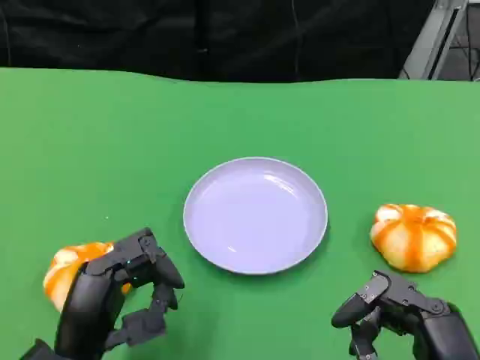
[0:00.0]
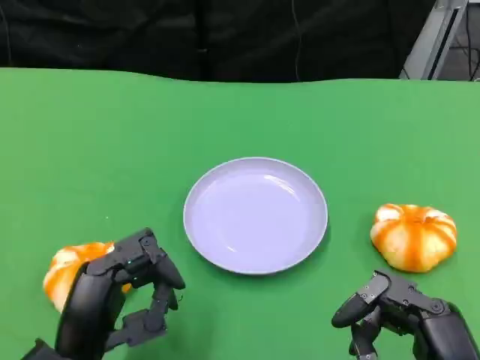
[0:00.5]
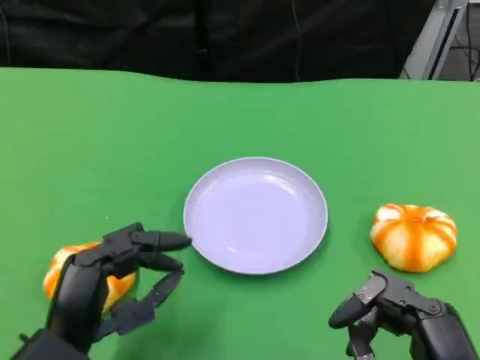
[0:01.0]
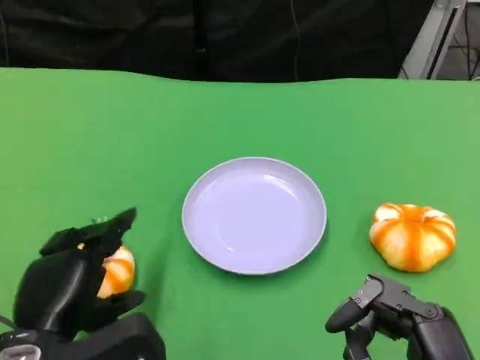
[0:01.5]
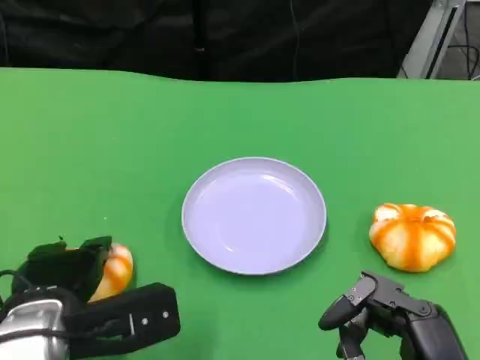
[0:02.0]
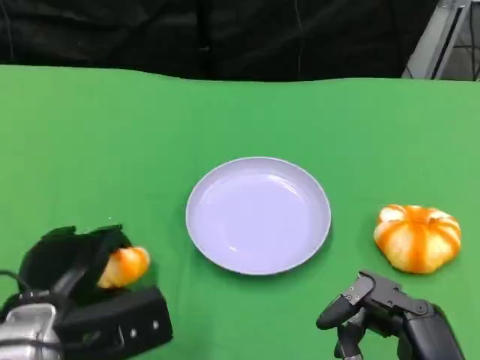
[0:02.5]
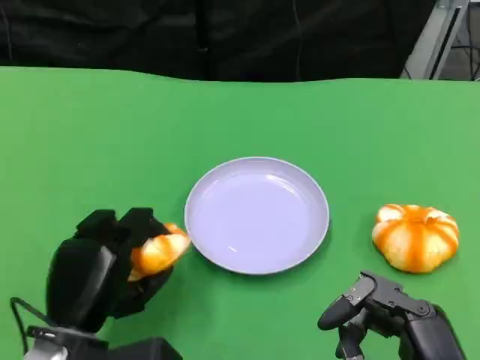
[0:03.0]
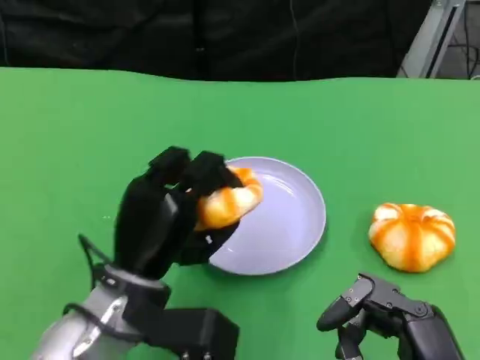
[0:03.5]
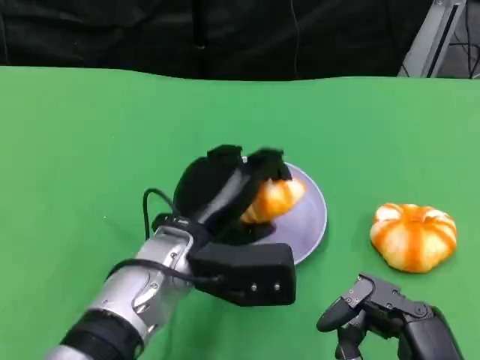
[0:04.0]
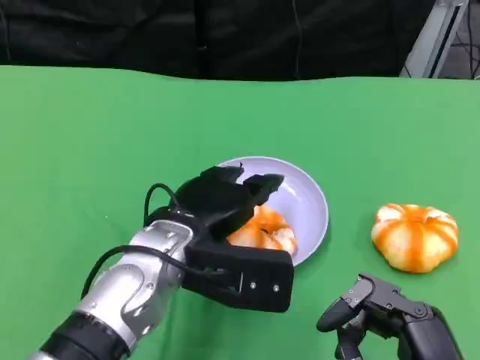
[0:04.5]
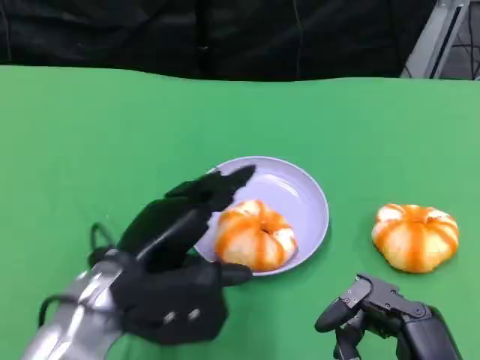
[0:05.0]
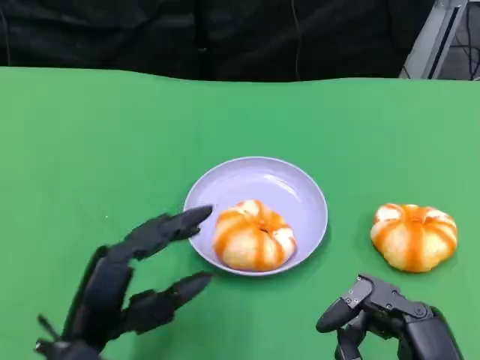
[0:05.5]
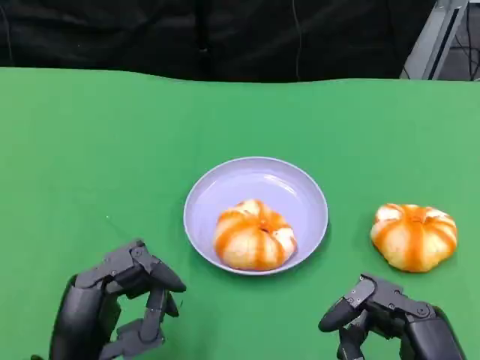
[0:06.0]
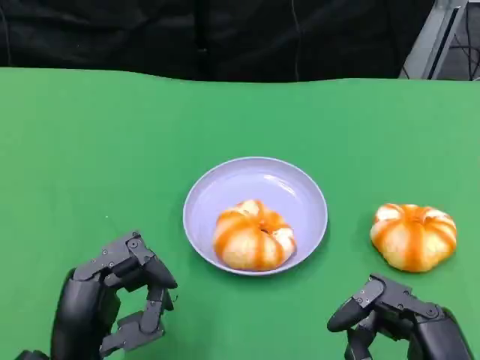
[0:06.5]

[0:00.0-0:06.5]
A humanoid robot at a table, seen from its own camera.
Task of the whole recording: Grasp the bread from the table and place it into the plate.
0:00.0 to 0:02.0: The left hand is displaced forward by roughly 5 cm.
0:02.0 to 0:04.5: The left hand goes approximately 10 cm to the right and forward.
0:04.5 to 0:06.5: The left hand is displaced backward, to the left and downward by about 15 cm.

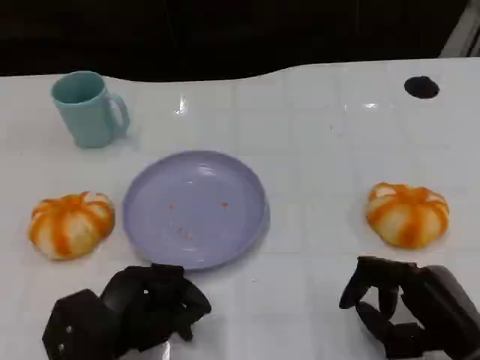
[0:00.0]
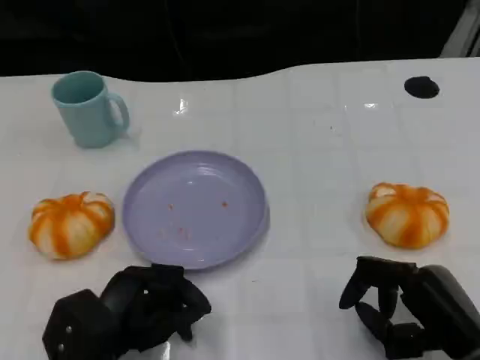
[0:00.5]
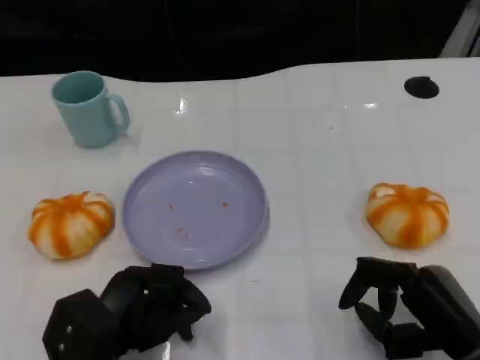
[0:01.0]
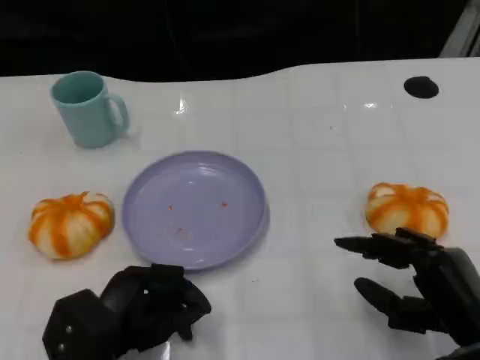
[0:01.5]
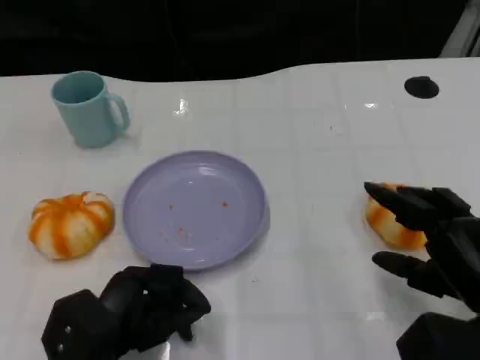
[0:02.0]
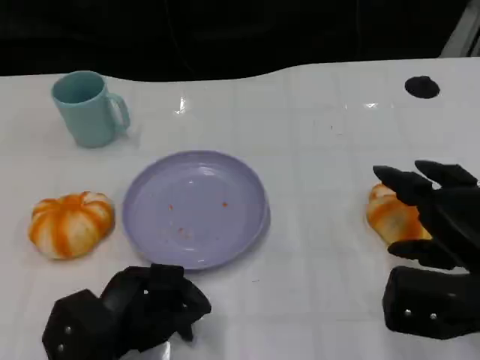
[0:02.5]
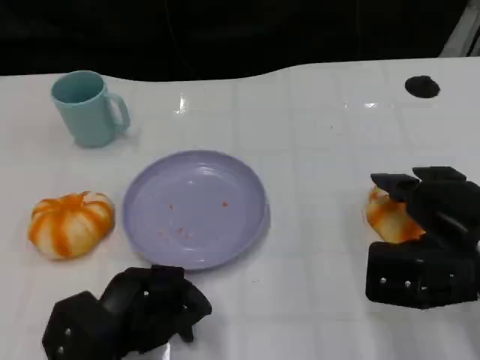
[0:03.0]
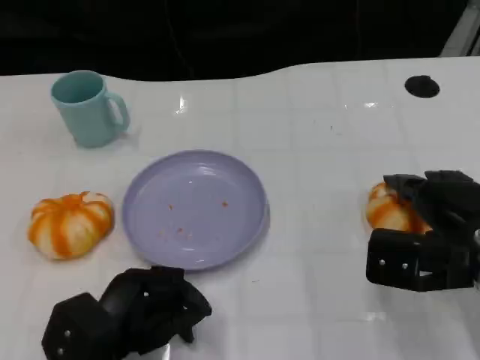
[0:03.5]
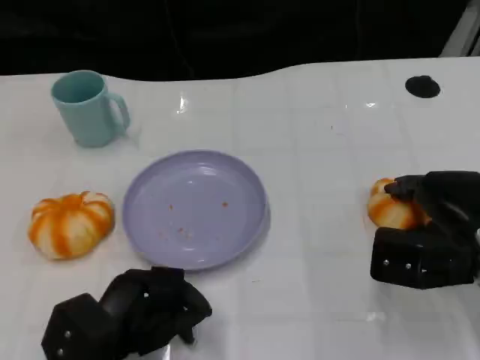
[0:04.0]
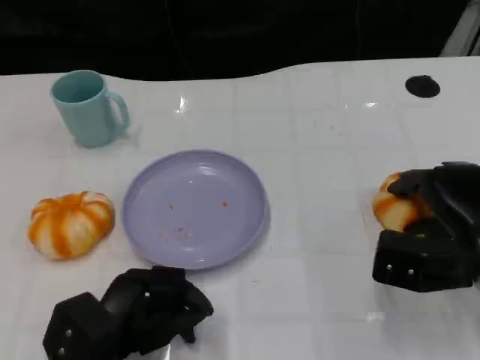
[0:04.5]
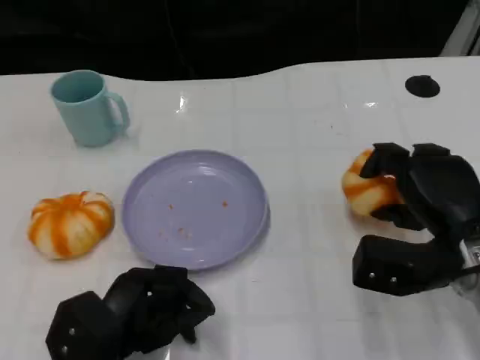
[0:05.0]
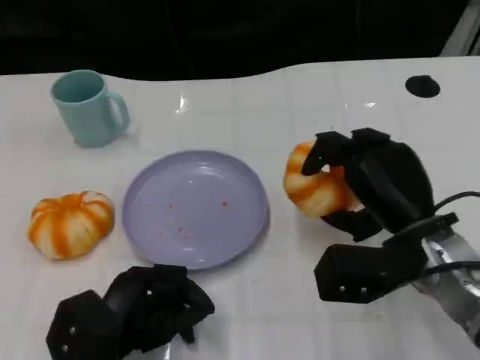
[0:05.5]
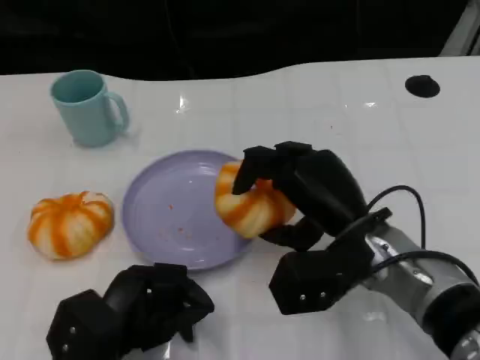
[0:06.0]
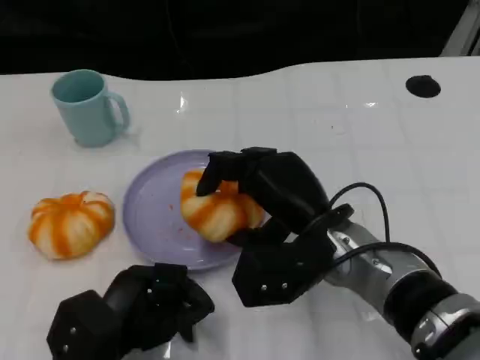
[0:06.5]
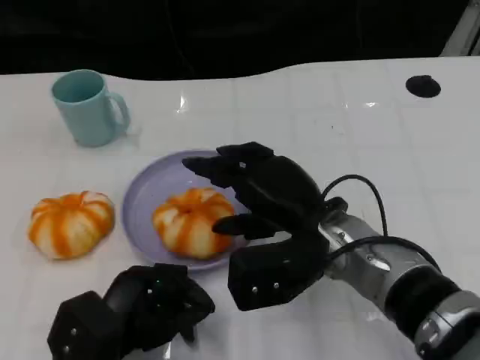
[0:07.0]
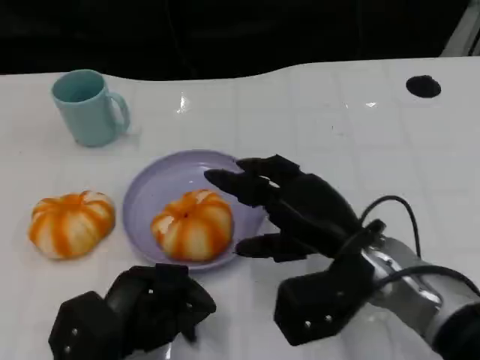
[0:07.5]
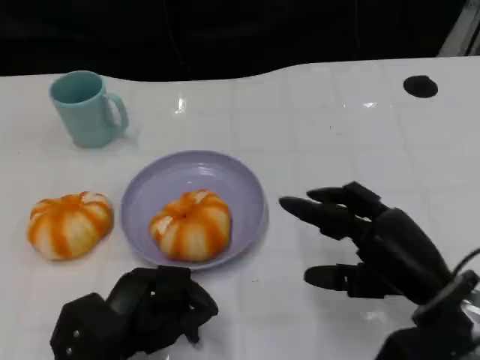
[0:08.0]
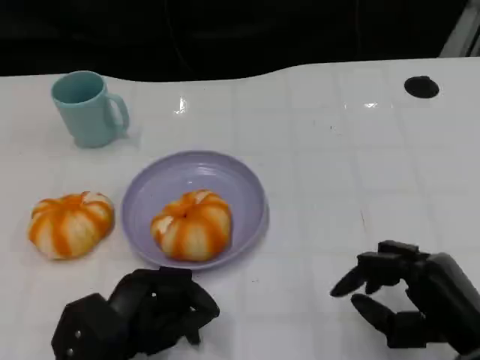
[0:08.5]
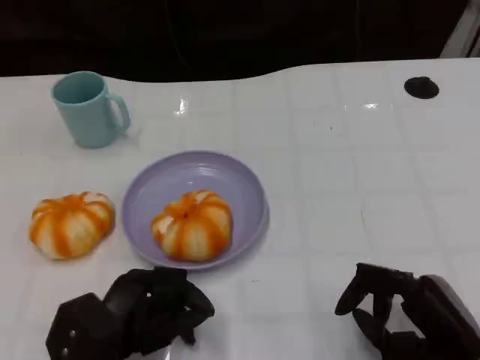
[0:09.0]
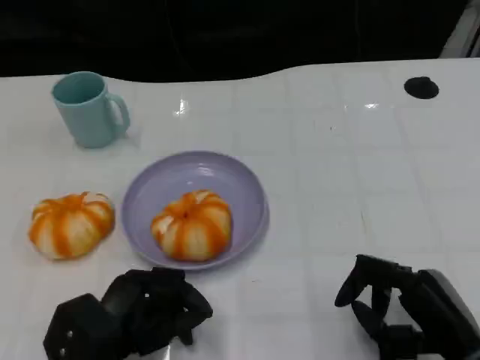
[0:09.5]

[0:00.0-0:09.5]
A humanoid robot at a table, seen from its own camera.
Task of the whole recording: Grasp the bread from the table and place it into the plate.
0:00.0 to 0:02.0: The right hand changes place by roughly 5 cm.
0:02.0 to 0:04.0: The right hand shifts approximately 10 cm forward.
0:04.0 to 0:05.5: The right hand heads to the left, covering roughly 5 cm.
0:07.5 to 0:09.5: The right hand moves to the right, backward and downward, approximately 15 cm.

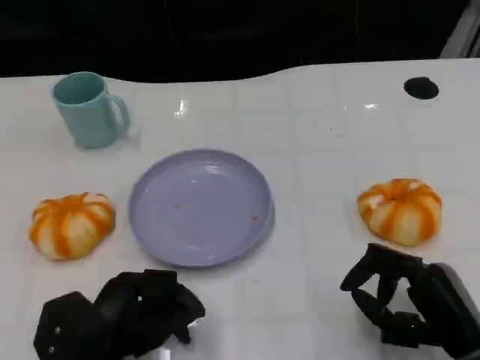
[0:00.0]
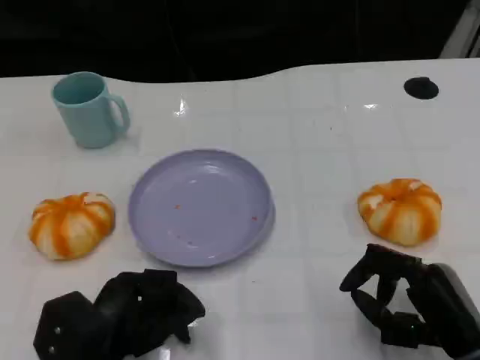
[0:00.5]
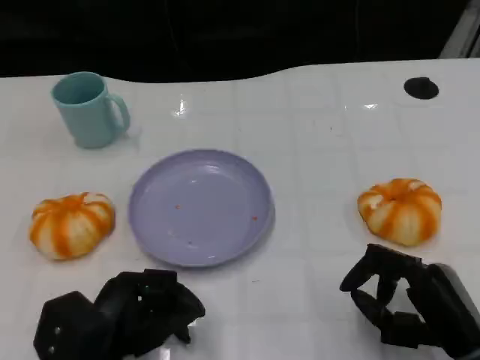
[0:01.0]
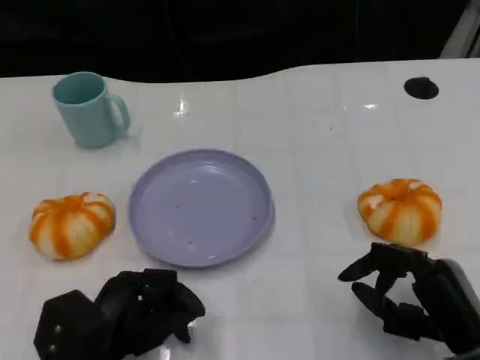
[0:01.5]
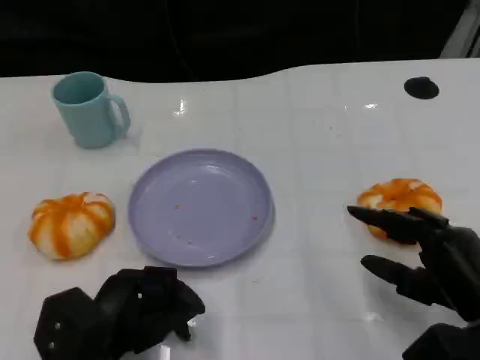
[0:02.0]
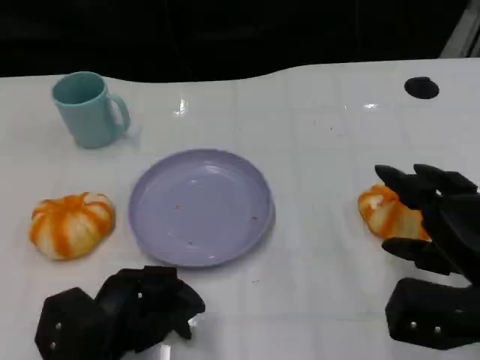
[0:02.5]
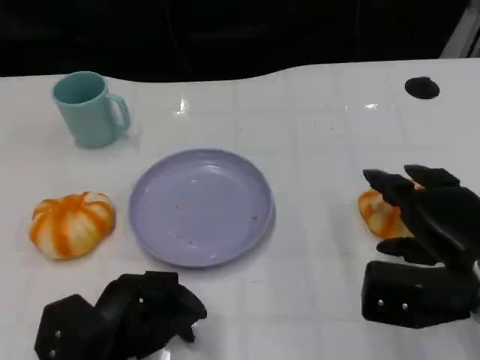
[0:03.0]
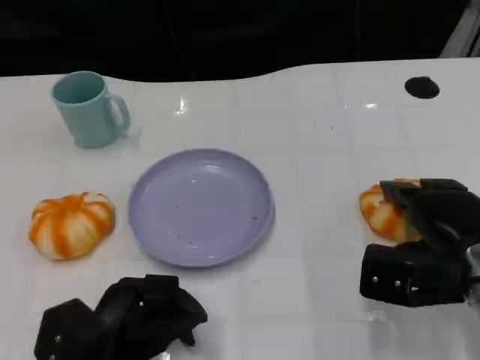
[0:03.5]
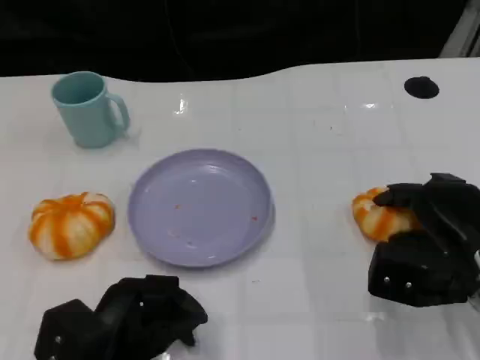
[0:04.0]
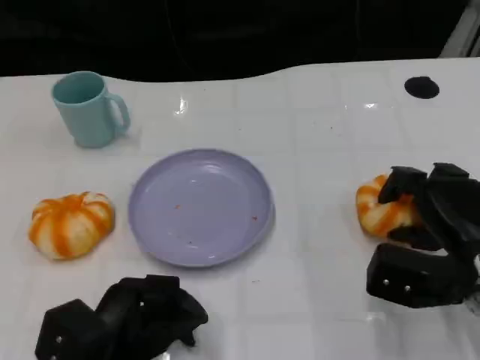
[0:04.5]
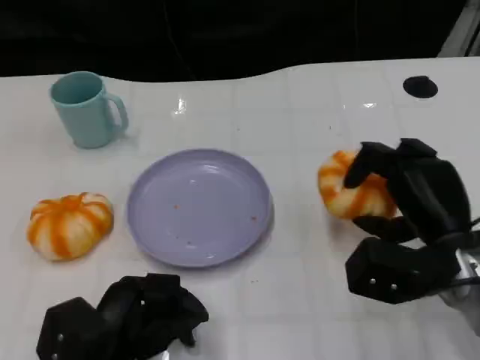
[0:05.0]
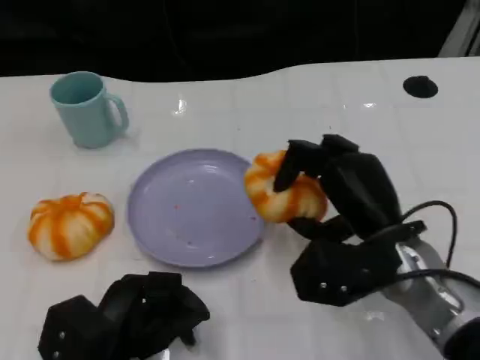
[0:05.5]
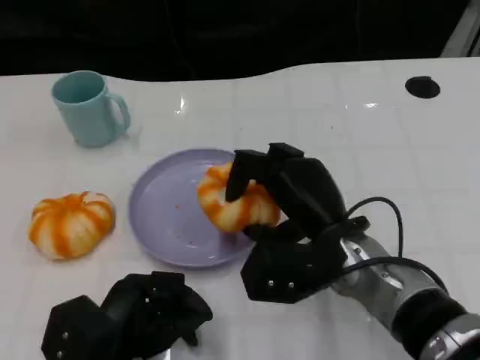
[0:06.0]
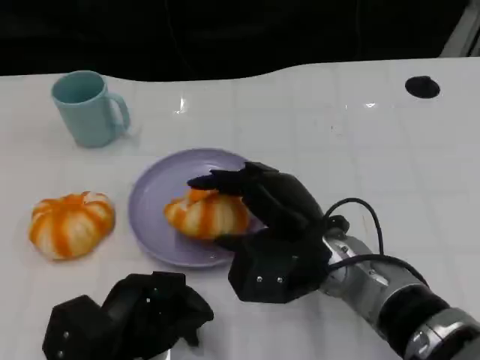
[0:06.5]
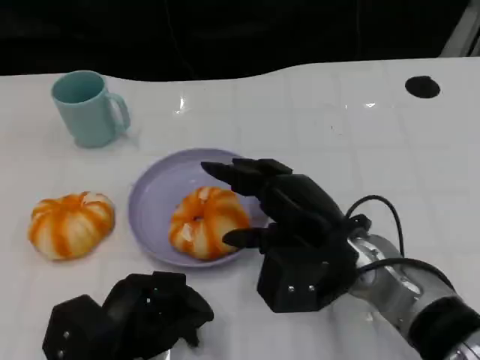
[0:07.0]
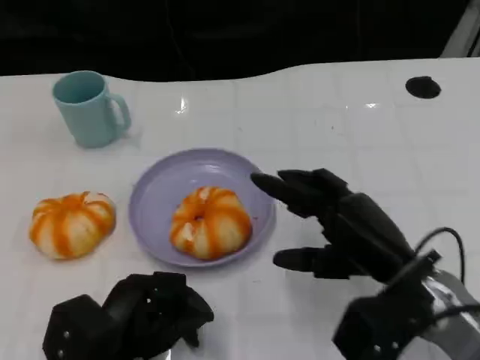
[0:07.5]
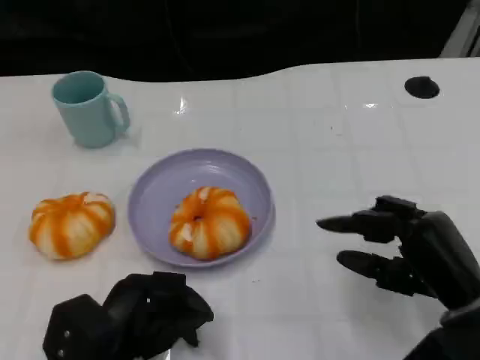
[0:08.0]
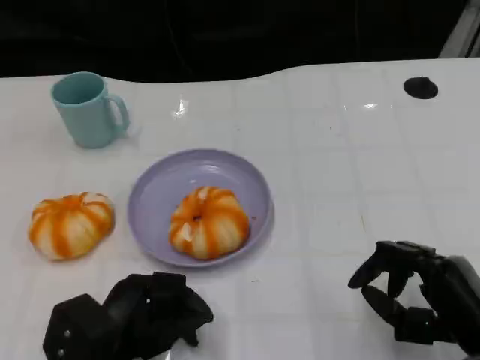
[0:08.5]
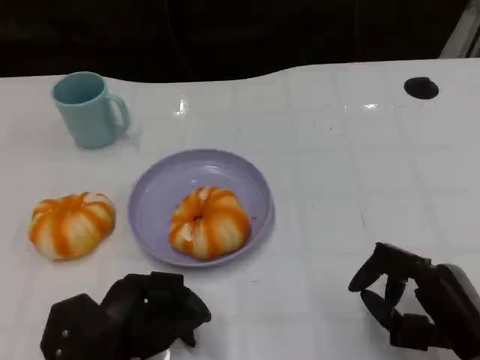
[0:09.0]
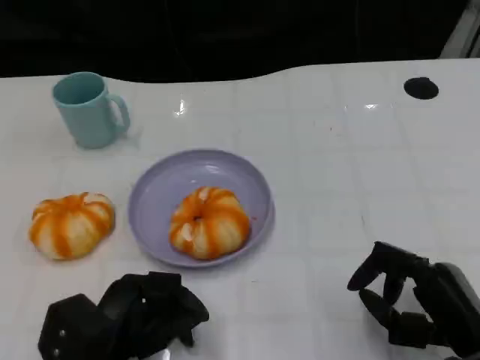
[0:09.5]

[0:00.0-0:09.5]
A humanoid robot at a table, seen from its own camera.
Task of the whole recording: Grasp the bread from the table and place it into the plate.
0:00.0 to 0:02.0: The hands move only a little.
0:02.0 to 0:04.0: The right hand is displaced forward by some 5 cm.
0:04.0 to 0:05.5: The right hand travels to the left by some 10 cm.
0:07.5 to 0:09.5: The right hand is displaced backward and to the right by some 10 cm.
